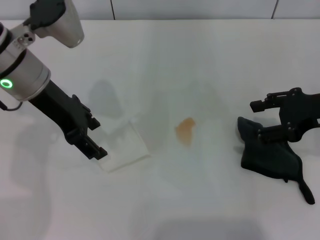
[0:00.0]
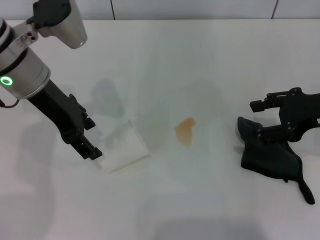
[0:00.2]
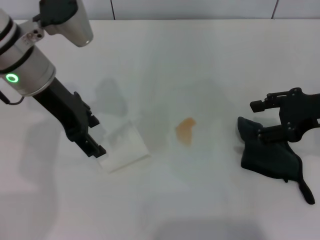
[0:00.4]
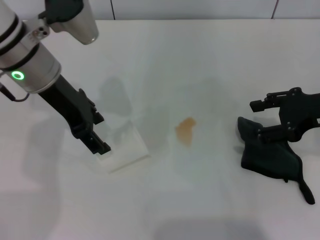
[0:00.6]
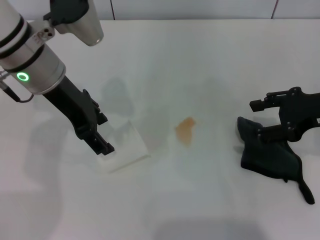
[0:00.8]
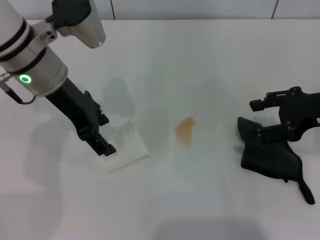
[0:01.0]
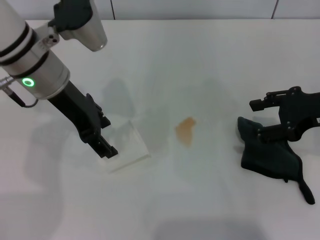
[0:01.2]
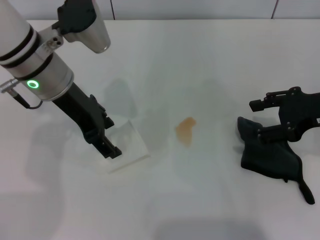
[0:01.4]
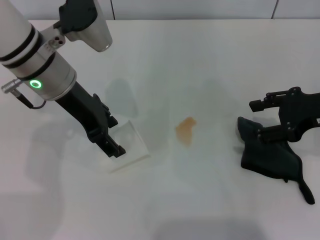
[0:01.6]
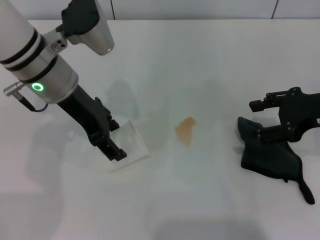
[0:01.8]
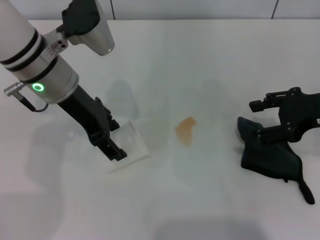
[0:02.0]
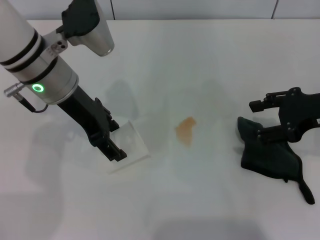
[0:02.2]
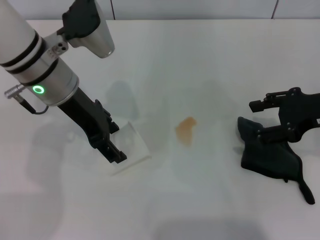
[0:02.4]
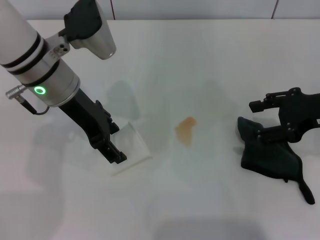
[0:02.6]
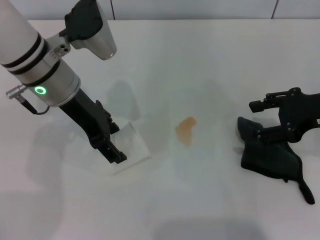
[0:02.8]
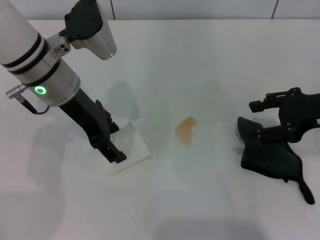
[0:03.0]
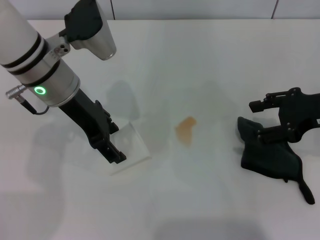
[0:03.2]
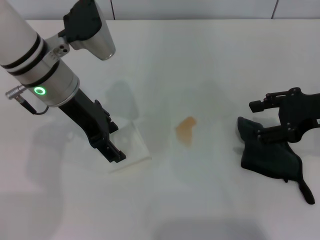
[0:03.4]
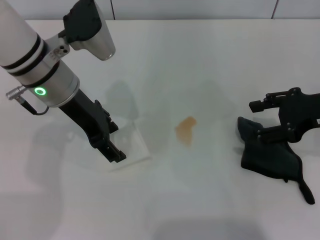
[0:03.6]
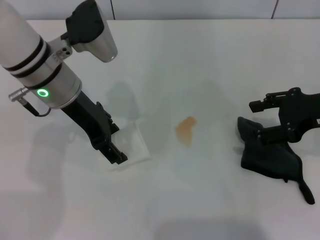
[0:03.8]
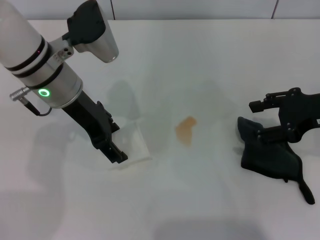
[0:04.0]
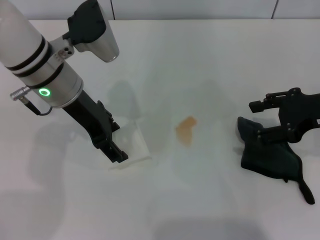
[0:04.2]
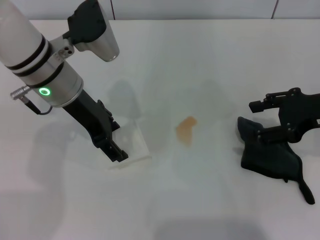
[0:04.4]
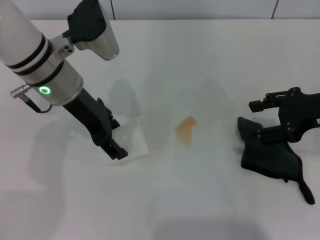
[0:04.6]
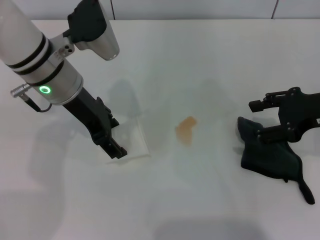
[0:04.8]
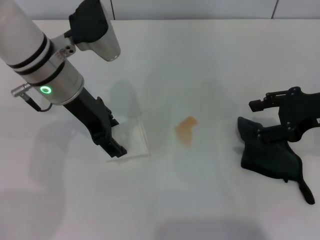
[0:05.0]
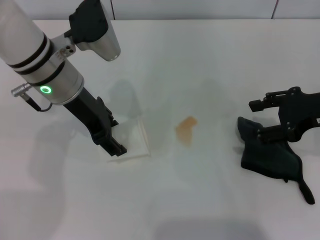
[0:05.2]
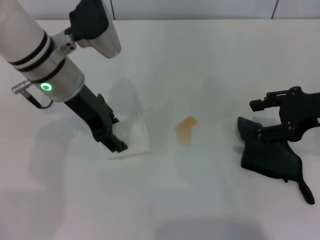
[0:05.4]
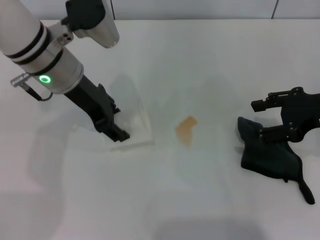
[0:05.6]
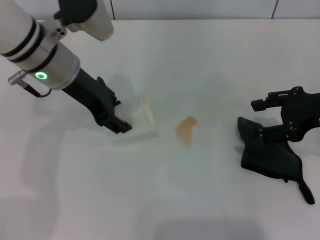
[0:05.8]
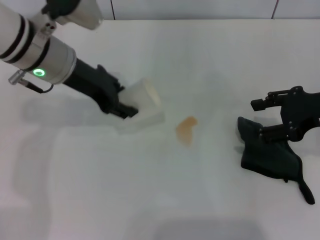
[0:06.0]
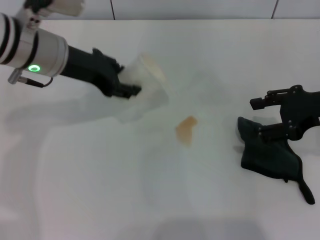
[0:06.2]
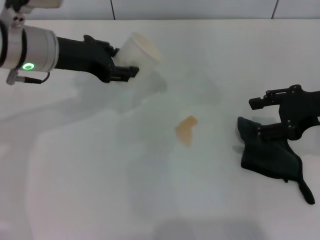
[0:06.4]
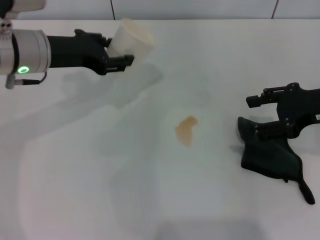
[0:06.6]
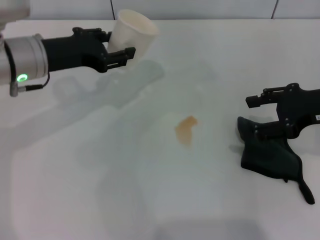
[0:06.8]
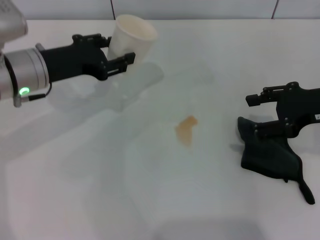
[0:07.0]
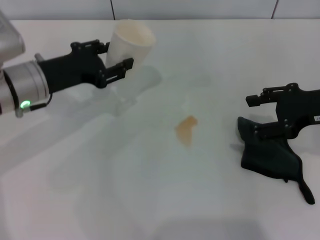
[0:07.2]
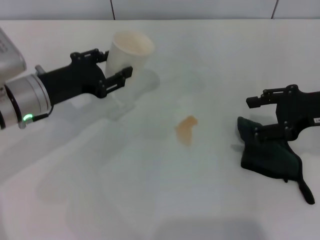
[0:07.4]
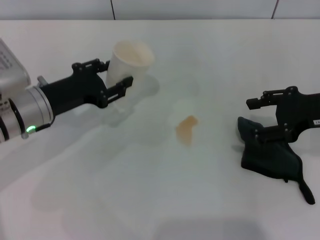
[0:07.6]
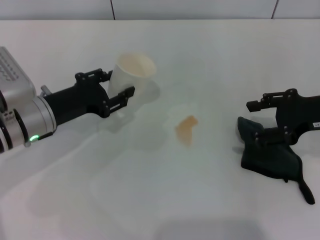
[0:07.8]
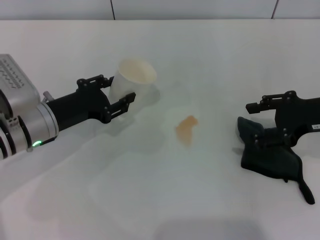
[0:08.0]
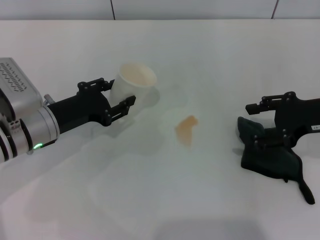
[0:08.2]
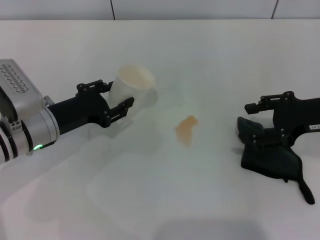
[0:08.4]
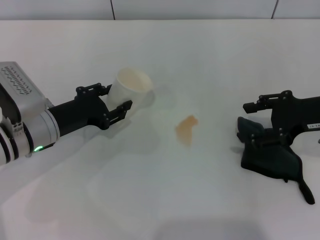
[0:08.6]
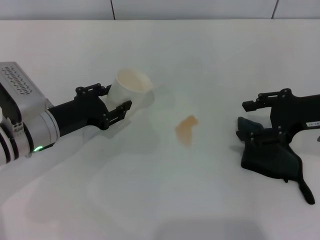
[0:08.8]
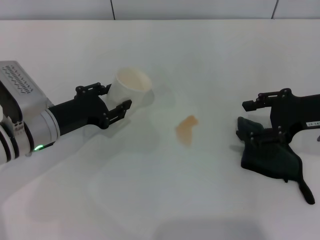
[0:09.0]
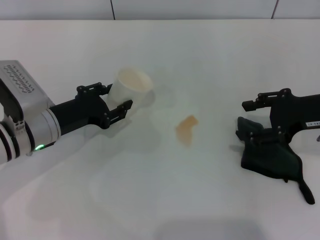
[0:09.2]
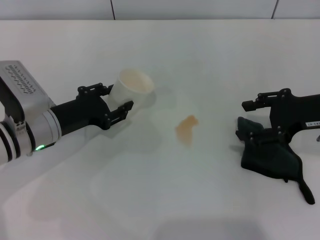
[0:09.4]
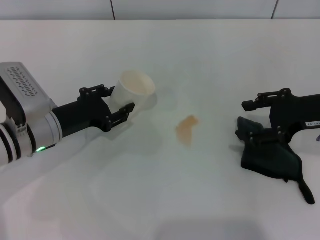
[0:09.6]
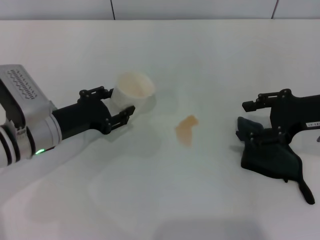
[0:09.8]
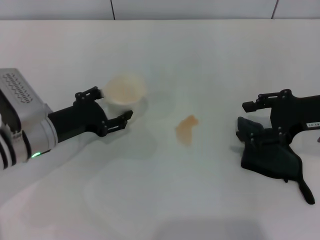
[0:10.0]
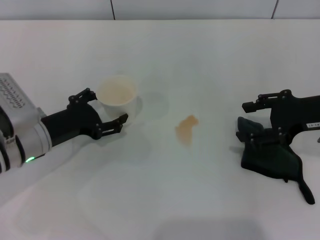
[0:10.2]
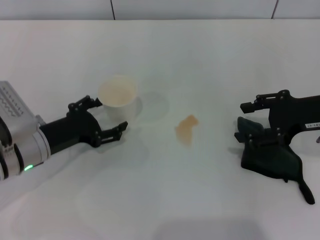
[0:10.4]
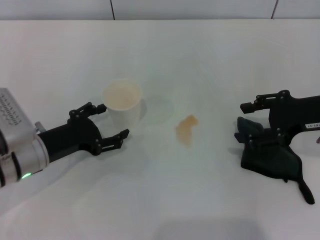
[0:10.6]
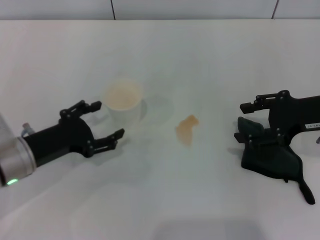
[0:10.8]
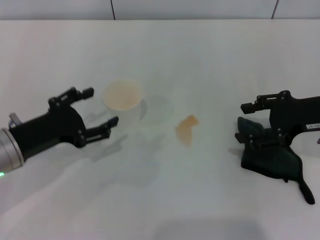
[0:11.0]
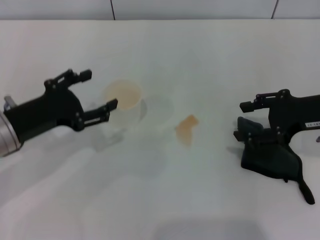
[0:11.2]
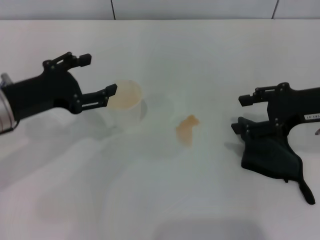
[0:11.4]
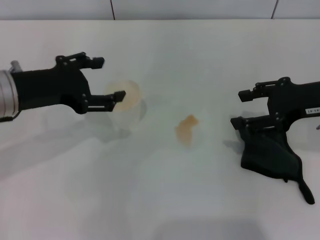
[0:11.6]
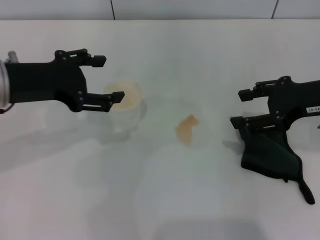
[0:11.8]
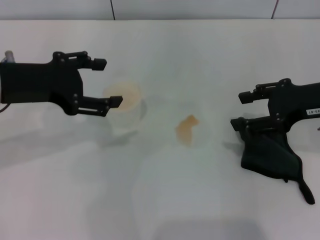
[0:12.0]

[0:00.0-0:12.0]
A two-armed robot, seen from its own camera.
Step, 0:00.0 to 0:05.0: Grasp the paper cup with the left gripper.
Step, 0:05.4 to 0:10.8: Stand the paper cup upright with the left gripper.
0:00.0 to 0:01.6: The grippers stay close to where they were, moving slightly.
0:01.6 to 0:03.0: Both grippers stay about where they are.
0:03.0 to 0:04.4: Neither gripper changes place.
0:04.4 to 0:06.0: The left gripper closes.
0:06.0 to 0:07.6: The left gripper heads downward and to the left, covering about 10 cm.
0:07.6 to 0:09.0: There are only small adjustments of the grippers.
0:09.0 to 0:10.4: The left gripper opens its fingers.
0:10.4 to 0:12.0: The left gripper shifts approximately 15 cm upward.

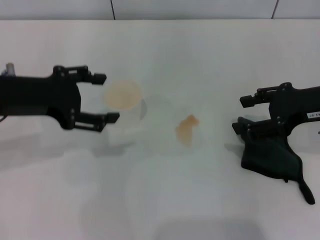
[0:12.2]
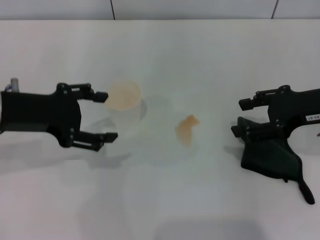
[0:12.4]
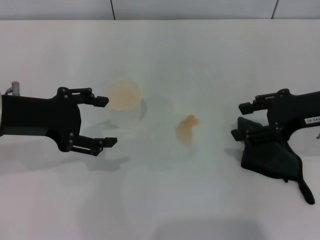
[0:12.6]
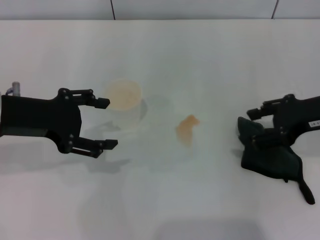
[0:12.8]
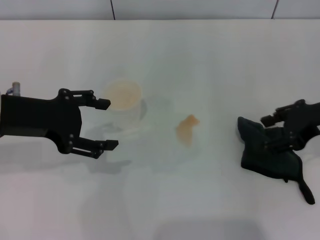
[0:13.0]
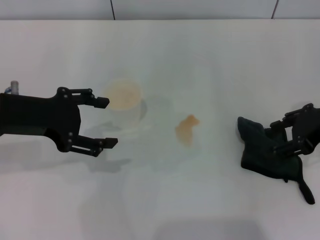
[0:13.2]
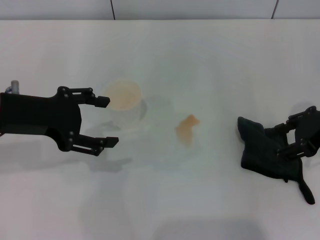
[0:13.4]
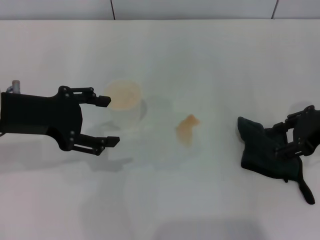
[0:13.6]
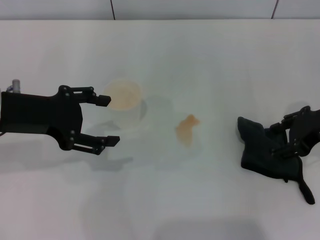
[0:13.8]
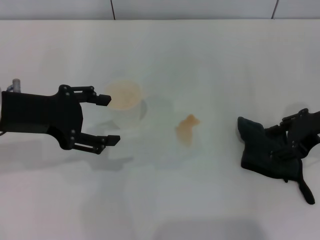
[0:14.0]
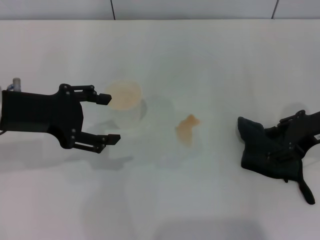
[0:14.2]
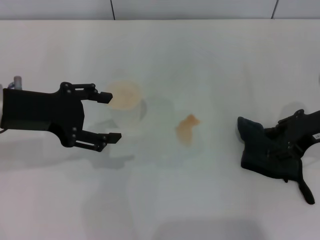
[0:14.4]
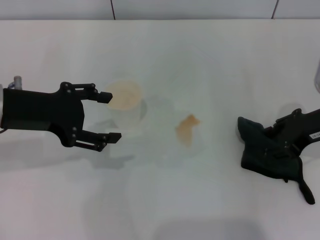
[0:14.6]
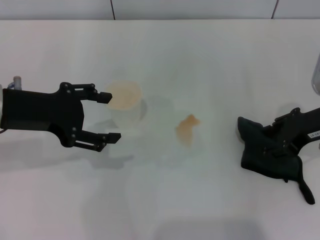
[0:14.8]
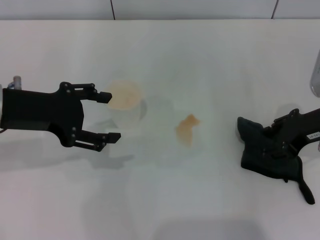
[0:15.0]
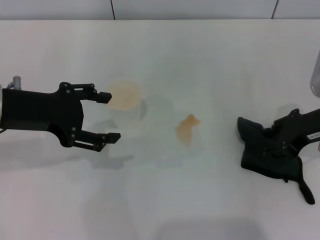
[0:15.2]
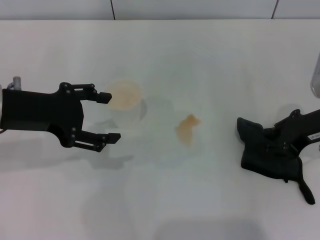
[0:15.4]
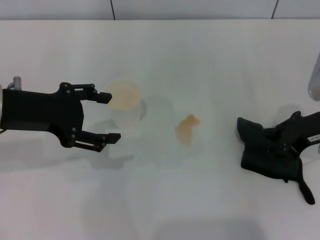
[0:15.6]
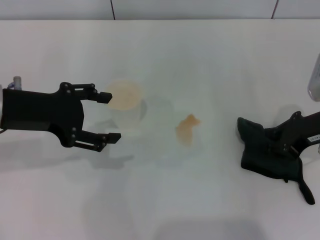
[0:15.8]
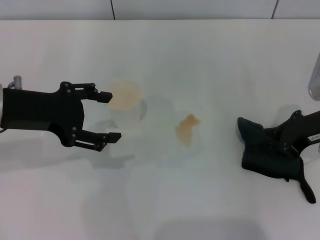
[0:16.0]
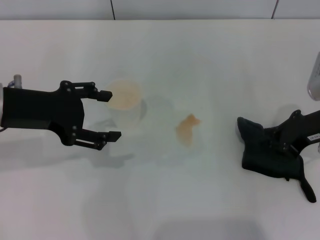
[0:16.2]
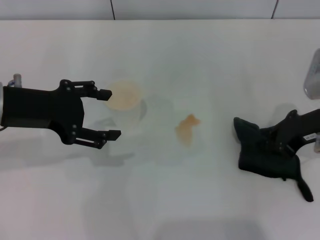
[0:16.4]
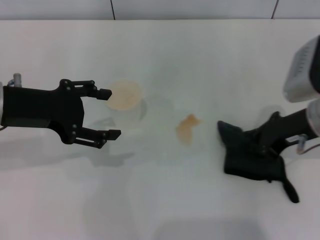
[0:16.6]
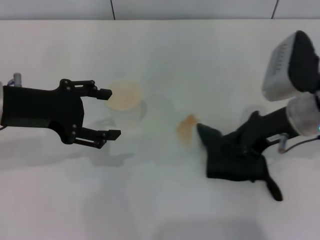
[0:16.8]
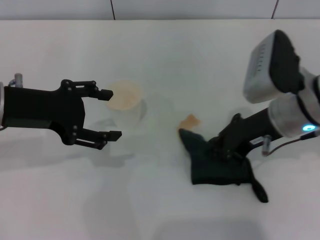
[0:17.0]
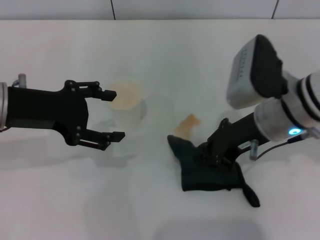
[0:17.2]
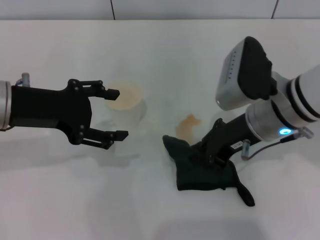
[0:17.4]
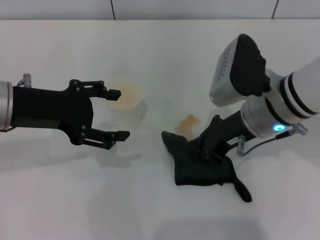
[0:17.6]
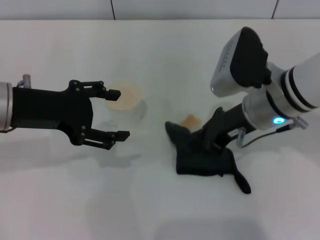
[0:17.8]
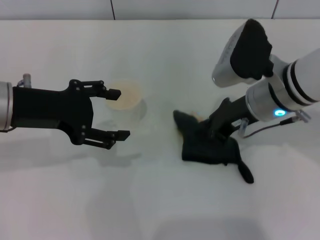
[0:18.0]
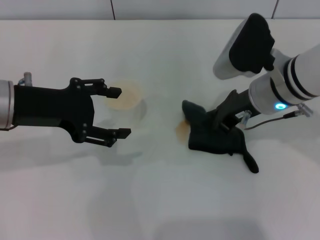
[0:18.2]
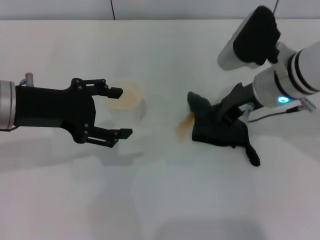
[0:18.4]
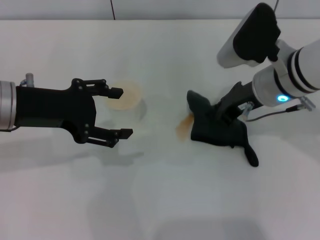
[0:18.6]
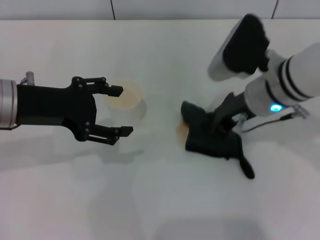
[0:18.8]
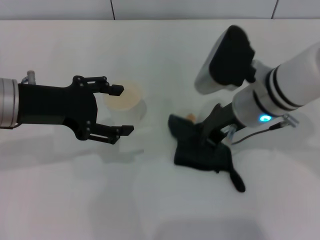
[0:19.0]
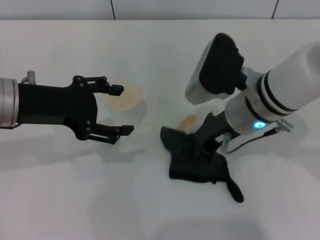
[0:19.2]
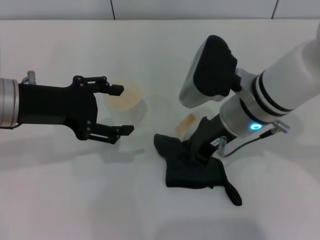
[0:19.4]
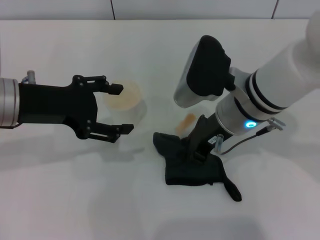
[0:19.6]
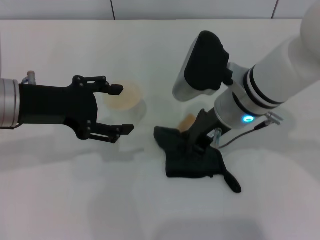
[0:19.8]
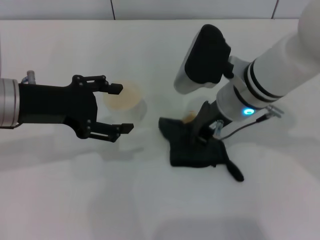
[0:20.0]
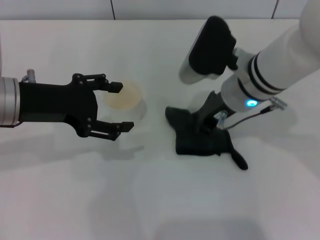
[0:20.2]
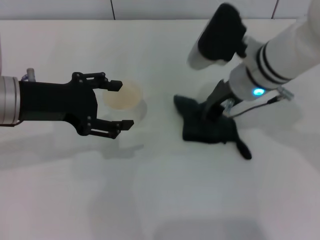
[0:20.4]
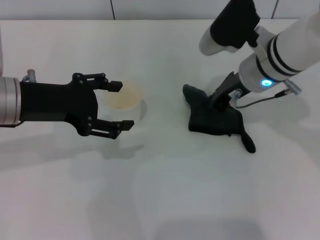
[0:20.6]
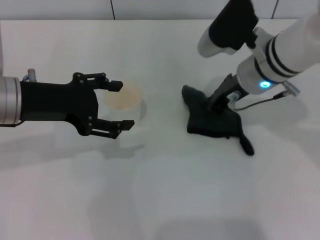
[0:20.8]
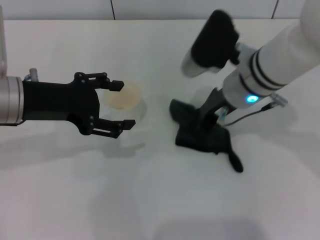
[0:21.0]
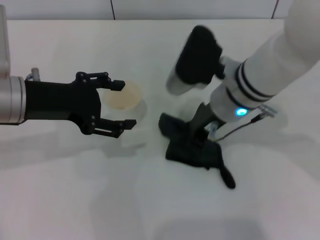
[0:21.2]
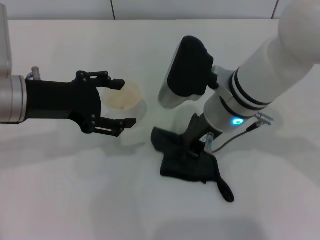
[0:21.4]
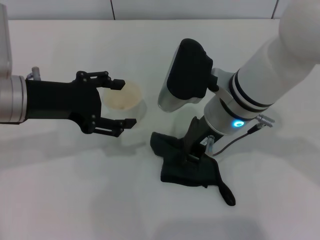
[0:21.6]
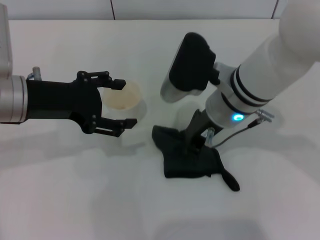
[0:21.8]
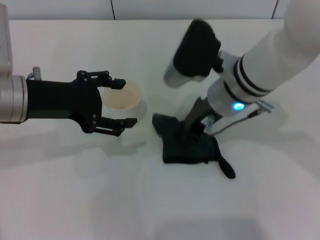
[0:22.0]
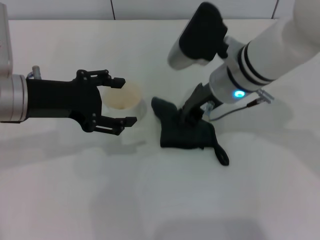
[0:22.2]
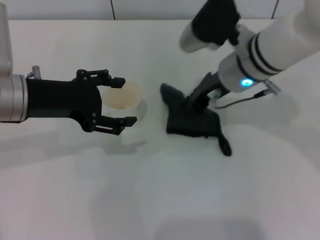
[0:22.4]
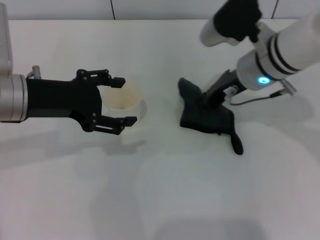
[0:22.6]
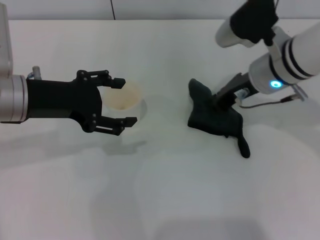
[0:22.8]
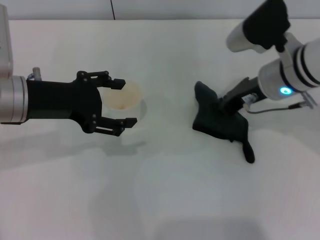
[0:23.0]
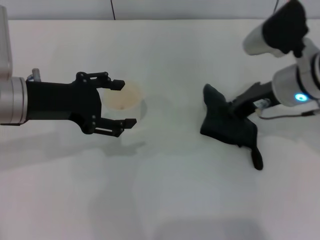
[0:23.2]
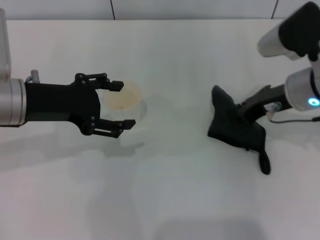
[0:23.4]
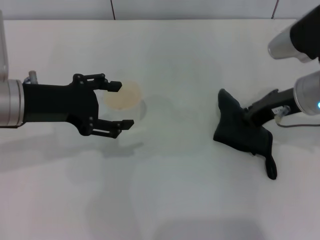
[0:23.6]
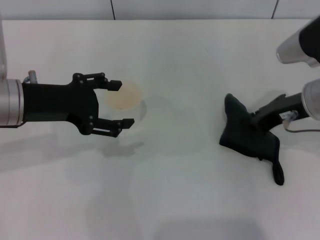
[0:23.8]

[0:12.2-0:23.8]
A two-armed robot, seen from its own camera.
Step, 0:12.2 to 0:16.2: Grasp the rag with the right gripper.
Step, 0:16.4 to 0:22.8: Wipe the stains off the table with the right gripper.
0:13.6 to 0:15.0: The grippers move only a little.
0:15.0 to 0:16.6: The right gripper closes up.
0:16.6 to 0:18.0: The right gripper travels to the left by some 10 cm.
0:21.0 to 0:22.4: The grippers make only small movements.
0:22.4 to 0:23.8: The right gripper is displaced to the right and backward by some 10 cm.
